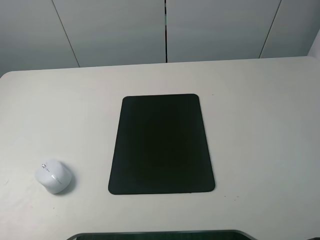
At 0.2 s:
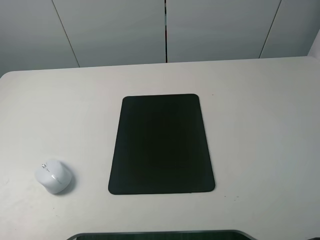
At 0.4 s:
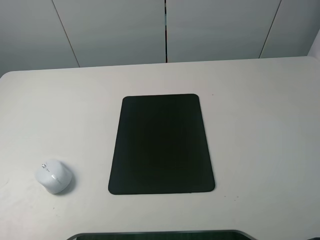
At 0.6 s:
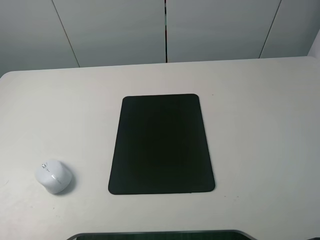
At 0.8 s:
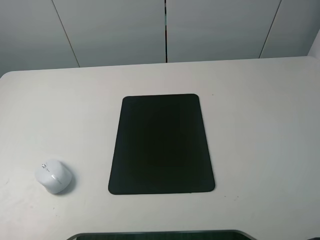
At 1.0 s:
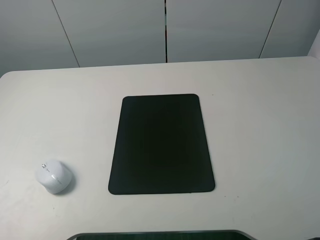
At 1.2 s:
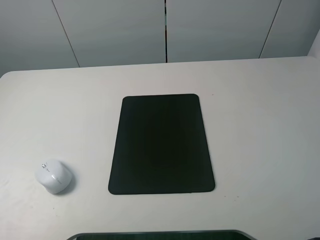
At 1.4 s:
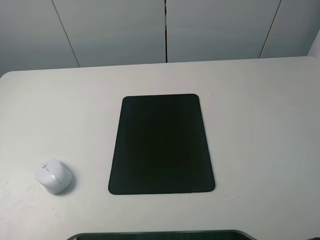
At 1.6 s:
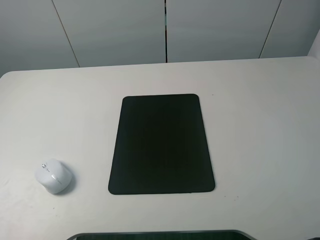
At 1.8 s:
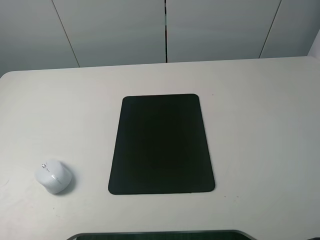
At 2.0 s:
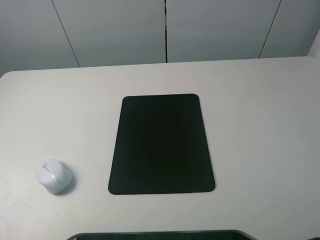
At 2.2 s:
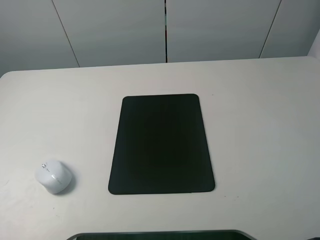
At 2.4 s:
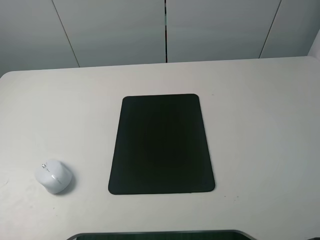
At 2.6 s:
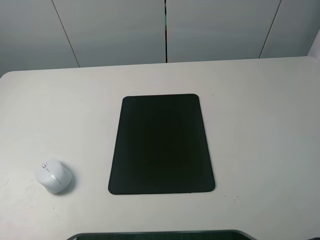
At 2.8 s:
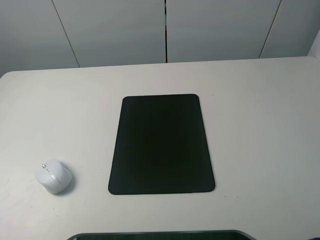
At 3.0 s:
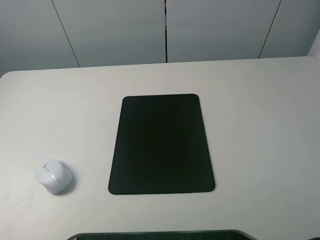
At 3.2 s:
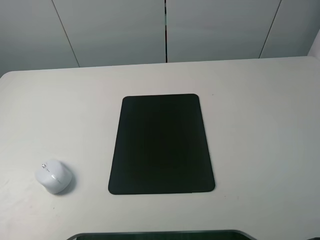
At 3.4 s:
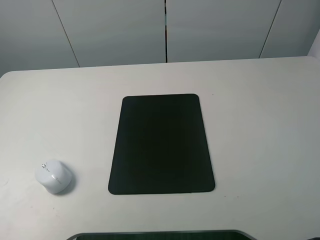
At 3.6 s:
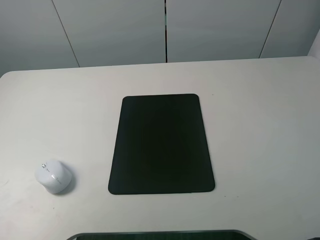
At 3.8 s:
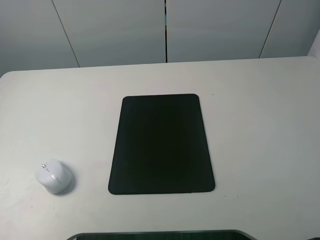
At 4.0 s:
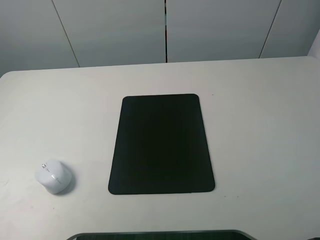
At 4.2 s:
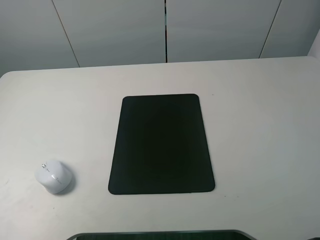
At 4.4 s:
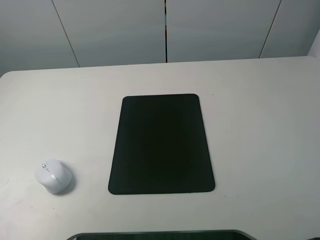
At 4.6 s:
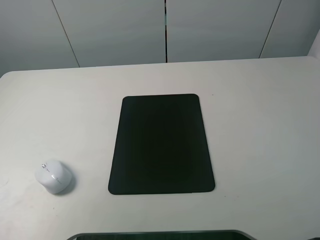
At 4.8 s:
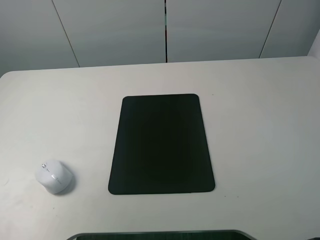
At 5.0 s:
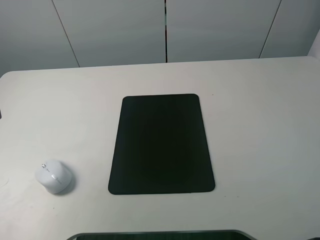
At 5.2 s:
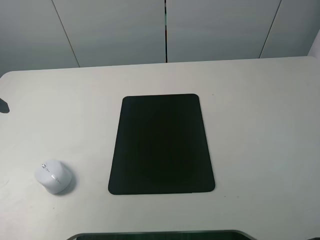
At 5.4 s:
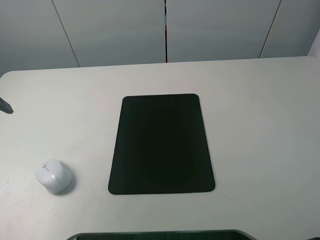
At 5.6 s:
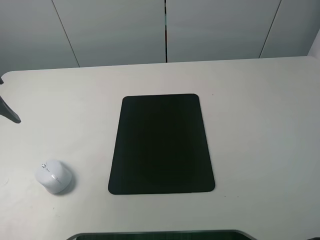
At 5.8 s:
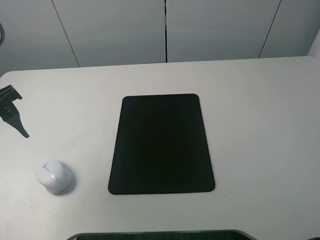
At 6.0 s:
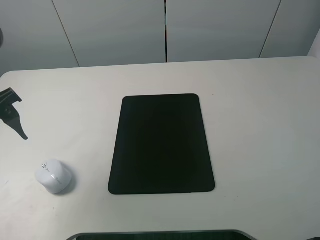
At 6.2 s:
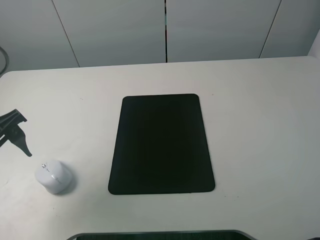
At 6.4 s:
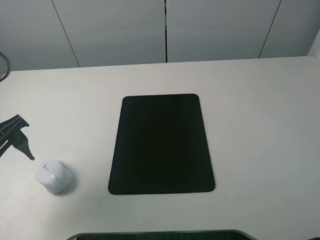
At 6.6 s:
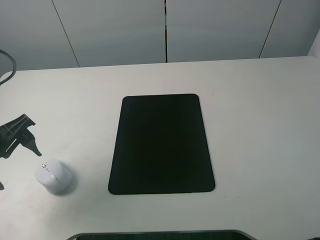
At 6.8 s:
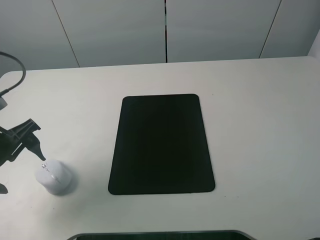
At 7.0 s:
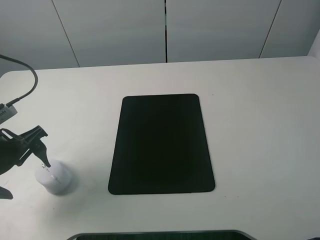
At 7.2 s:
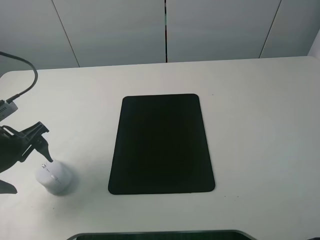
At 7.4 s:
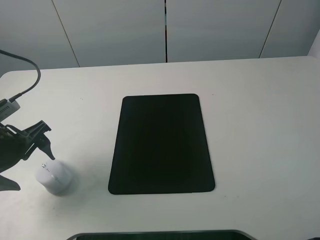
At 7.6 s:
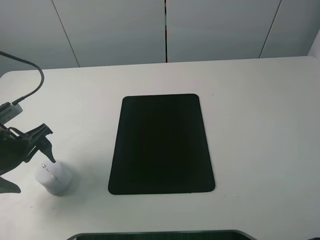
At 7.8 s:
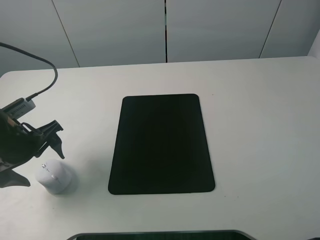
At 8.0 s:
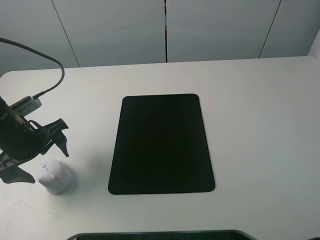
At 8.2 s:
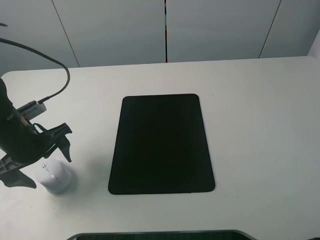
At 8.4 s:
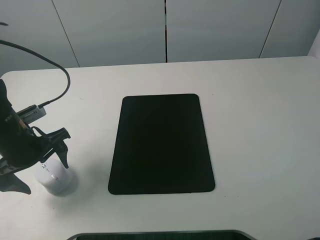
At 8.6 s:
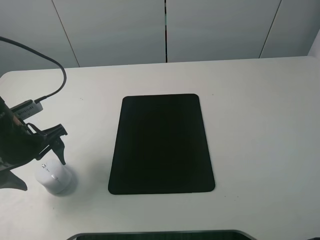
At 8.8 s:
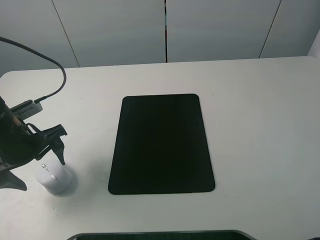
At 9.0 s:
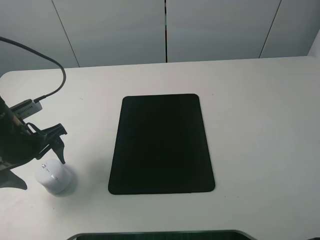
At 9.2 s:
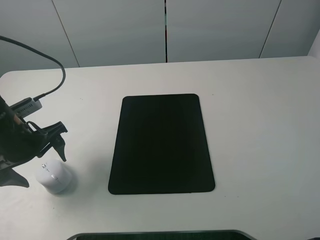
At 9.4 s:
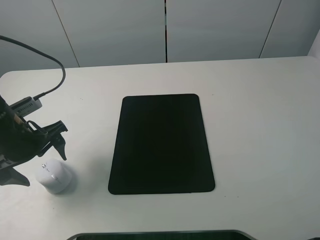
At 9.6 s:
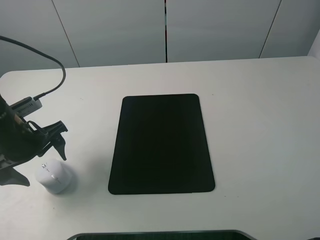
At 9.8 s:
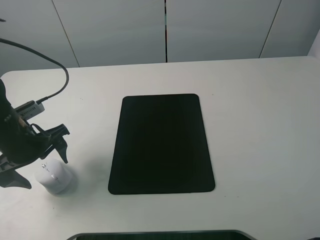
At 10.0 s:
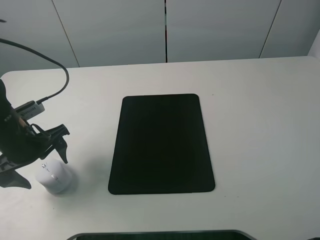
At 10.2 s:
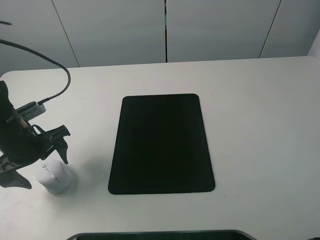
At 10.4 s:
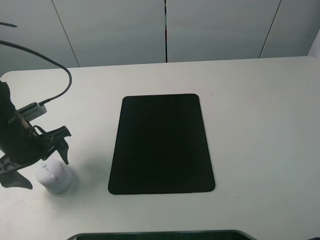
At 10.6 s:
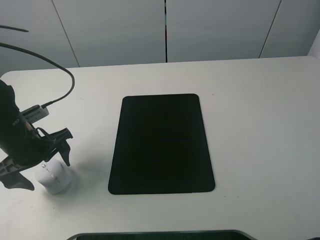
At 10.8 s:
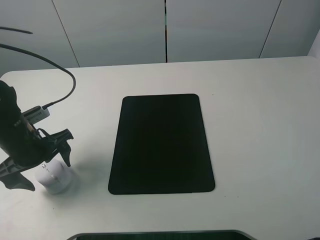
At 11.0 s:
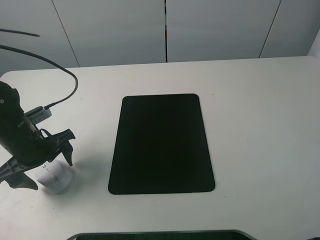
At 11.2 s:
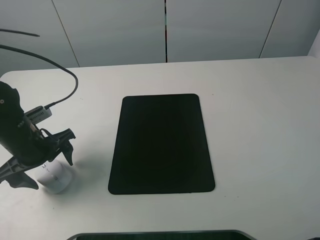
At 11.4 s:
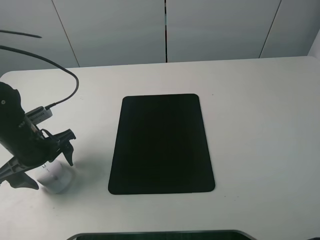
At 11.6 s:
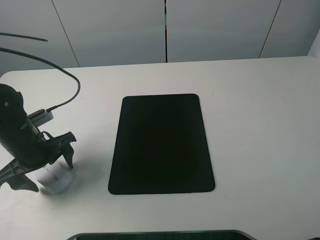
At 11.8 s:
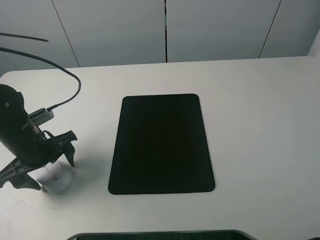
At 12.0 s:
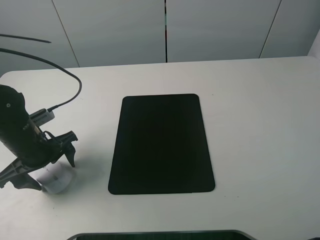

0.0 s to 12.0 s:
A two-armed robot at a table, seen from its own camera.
0.0 to 1.6 s: The two grippers keep their place.
4.4 to 6.0 s: The left gripper travels downward and forward by roughly 10 cm.
6.0 to 7.6 s: The left gripper shifts approximately 10 cm downward.
7.6 to 12.0 s: The grippers move only a little.

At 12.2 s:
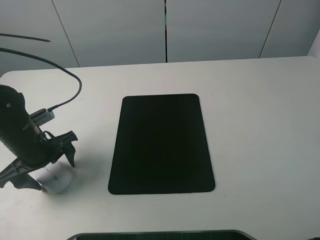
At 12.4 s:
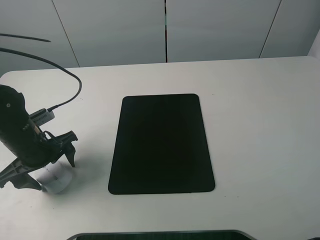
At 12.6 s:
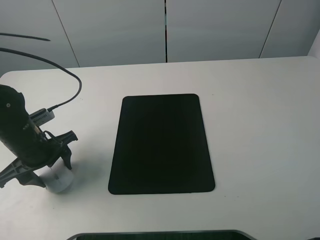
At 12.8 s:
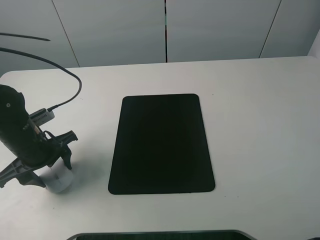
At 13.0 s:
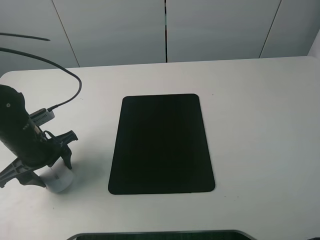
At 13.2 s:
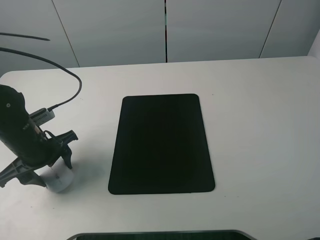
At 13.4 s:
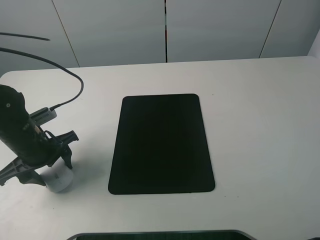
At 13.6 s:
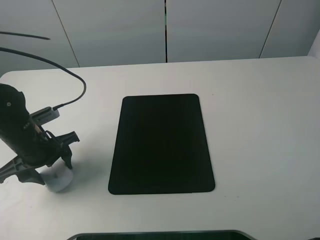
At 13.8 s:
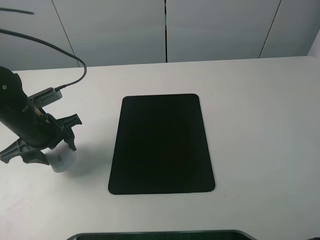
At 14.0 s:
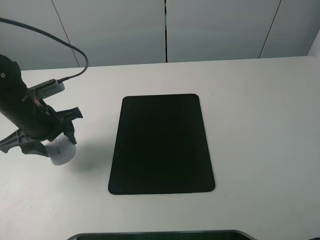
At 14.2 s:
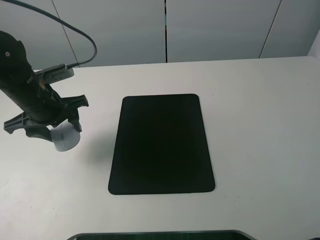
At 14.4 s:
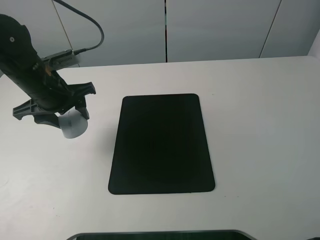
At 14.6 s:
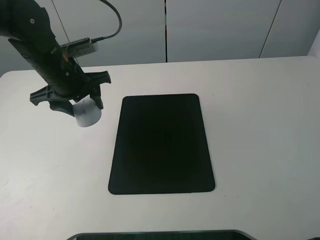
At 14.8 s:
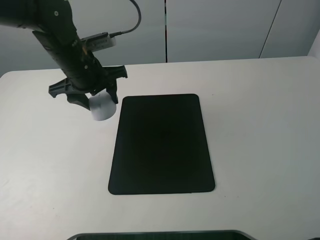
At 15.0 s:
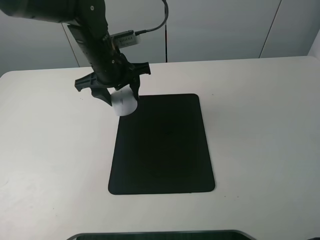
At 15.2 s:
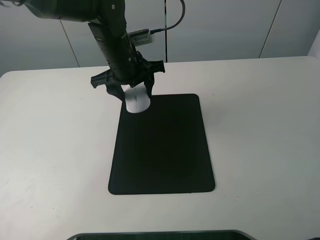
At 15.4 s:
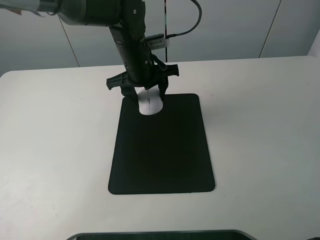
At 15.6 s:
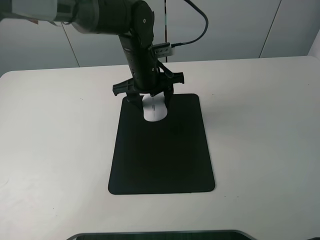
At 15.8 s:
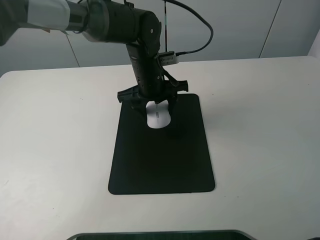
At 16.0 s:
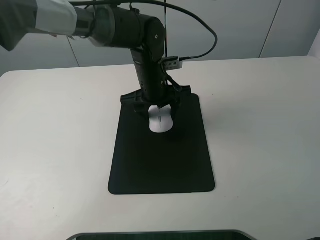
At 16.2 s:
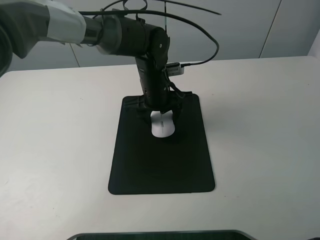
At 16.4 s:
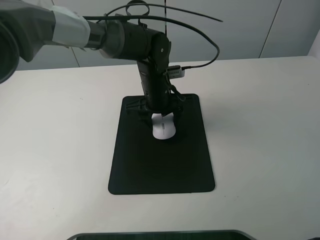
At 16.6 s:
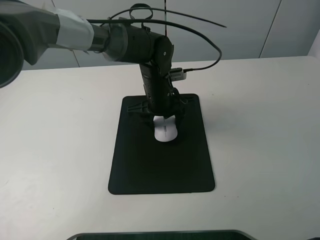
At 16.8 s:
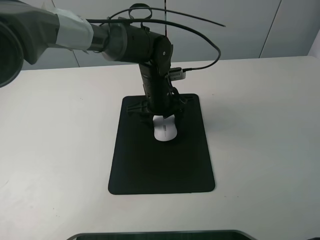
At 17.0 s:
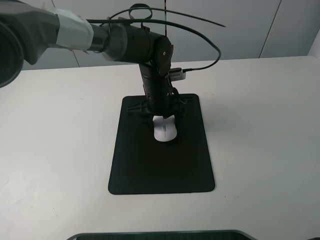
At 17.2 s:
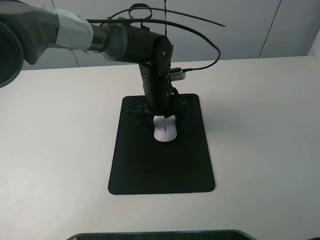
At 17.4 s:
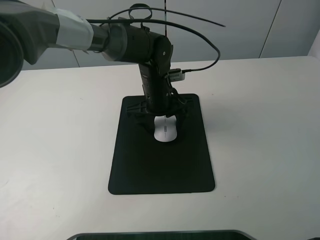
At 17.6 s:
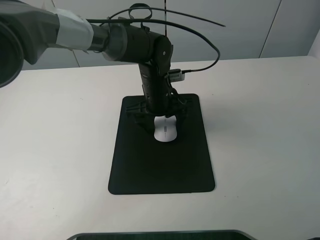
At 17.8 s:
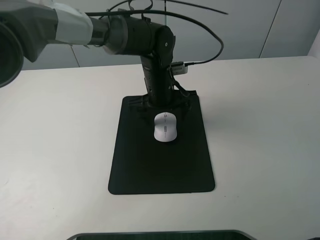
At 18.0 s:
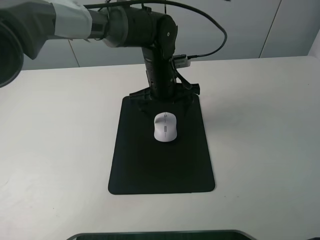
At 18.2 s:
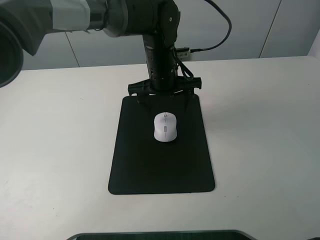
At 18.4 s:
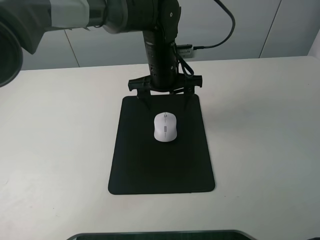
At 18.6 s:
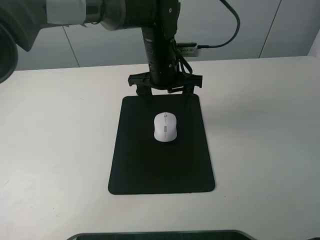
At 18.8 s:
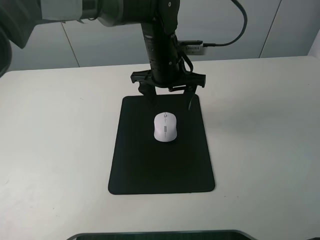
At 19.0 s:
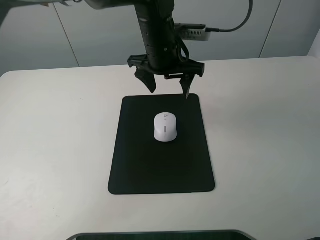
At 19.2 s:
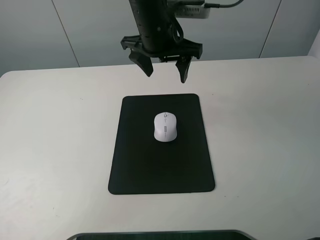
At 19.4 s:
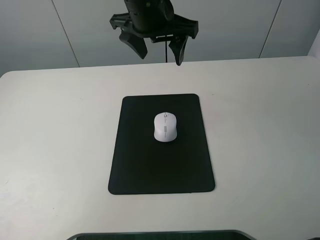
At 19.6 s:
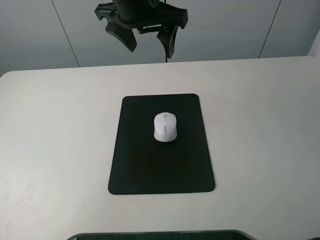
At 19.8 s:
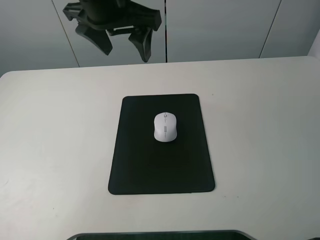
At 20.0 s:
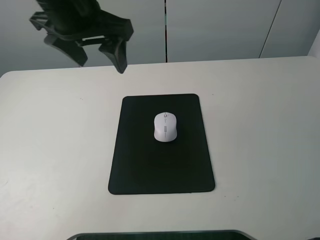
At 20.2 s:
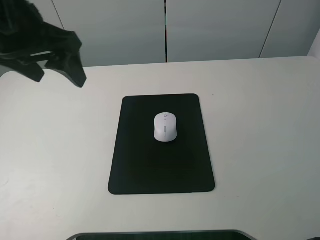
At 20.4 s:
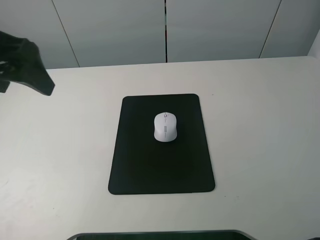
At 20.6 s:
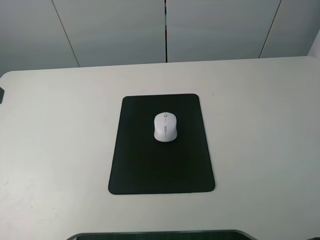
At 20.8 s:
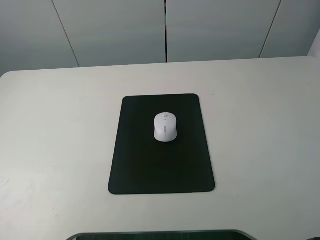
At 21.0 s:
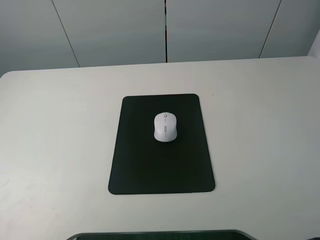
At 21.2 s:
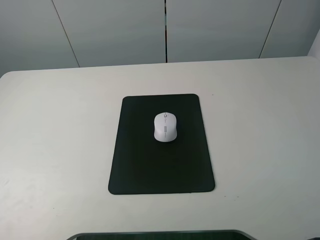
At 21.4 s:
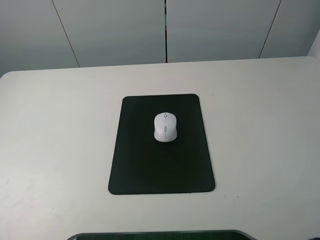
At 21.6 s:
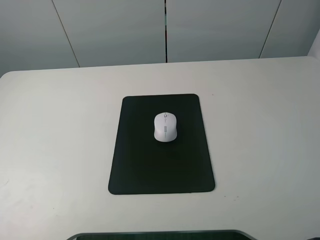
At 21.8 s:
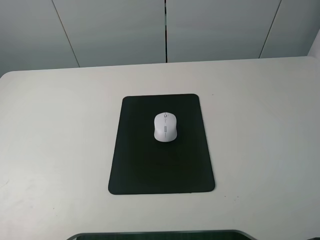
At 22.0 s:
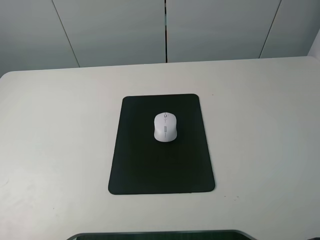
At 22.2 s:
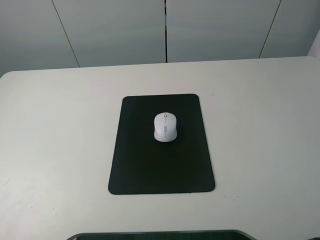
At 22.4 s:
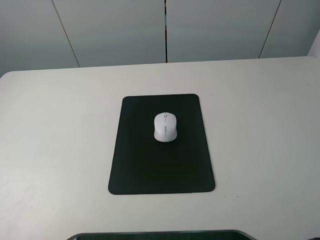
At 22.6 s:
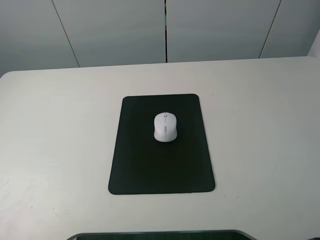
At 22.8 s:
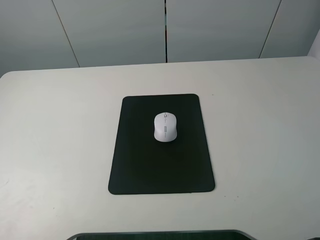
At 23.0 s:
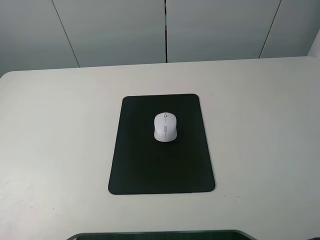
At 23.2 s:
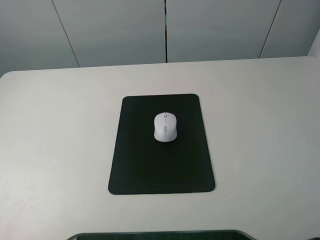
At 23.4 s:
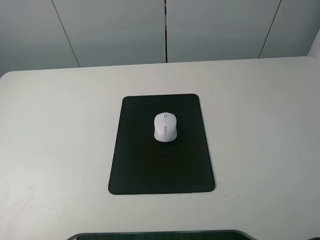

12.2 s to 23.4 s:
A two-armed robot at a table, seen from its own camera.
Step, 13.4 to 17.4 s: Place the mouse on the mouse mat with the left gripper.
12.2 to 13.8 s: The left gripper closes its fingers.
13.8 to 15.4 s: The left gripper heads to the right and forward, covering approximately 25 cm.
15.4 to 17.0 s: The left gripper moves downward, about 5 cm.
17.0 to 18.6 s: The left gripper shifts about 5 cm upward, and opens its fingers.
18.6 to 20.2 s: The left gripper is displaced to the left, upward and backward by approximately 30 cm.
20.2 to 21.8 s: The left gripper goes approximately 25 cm backward and to the left.
